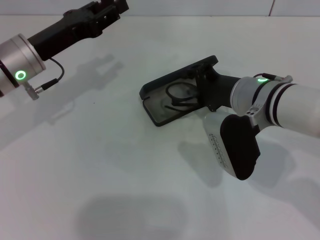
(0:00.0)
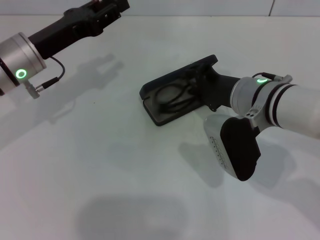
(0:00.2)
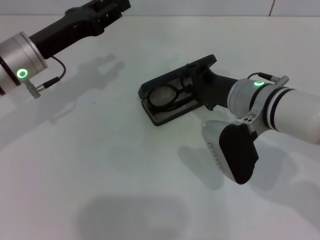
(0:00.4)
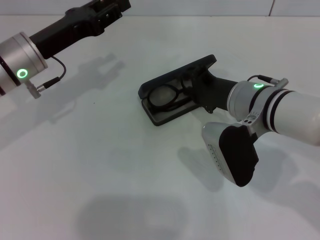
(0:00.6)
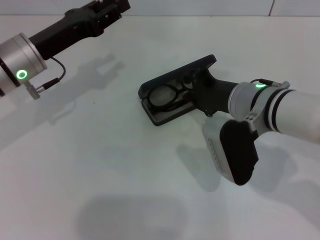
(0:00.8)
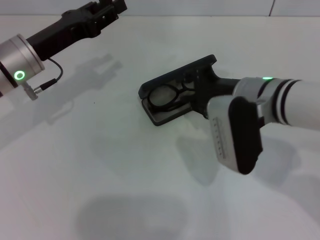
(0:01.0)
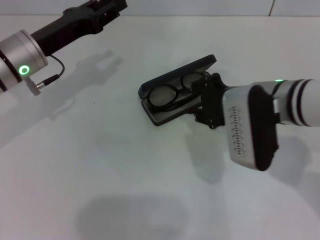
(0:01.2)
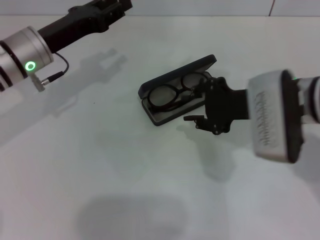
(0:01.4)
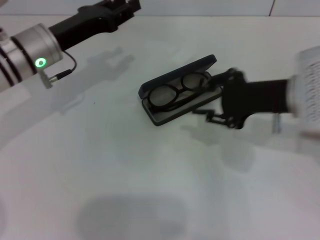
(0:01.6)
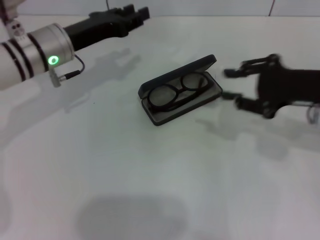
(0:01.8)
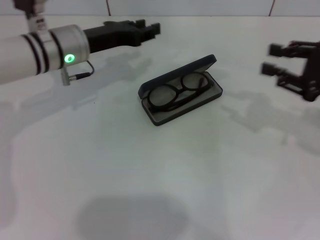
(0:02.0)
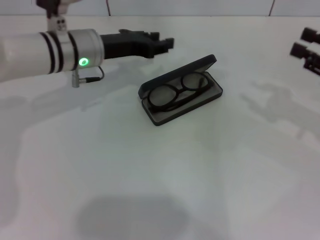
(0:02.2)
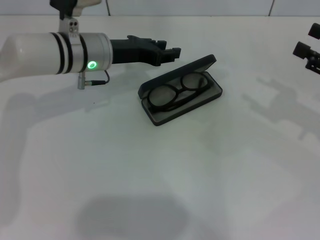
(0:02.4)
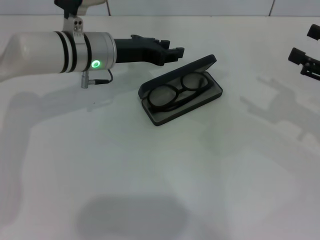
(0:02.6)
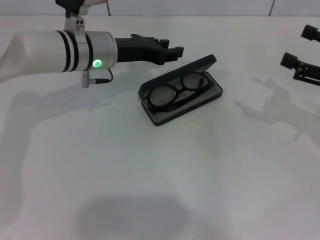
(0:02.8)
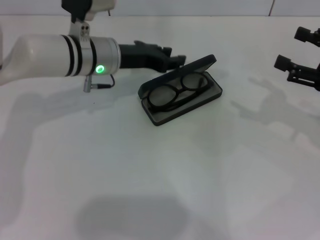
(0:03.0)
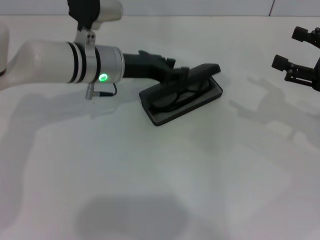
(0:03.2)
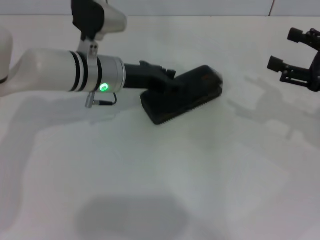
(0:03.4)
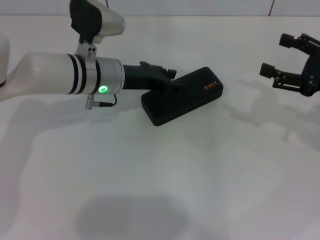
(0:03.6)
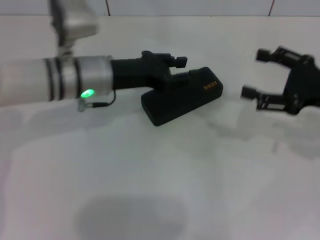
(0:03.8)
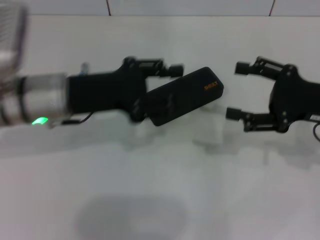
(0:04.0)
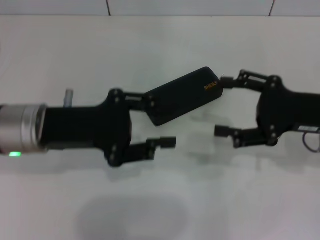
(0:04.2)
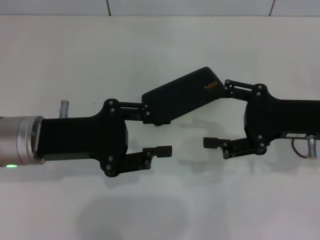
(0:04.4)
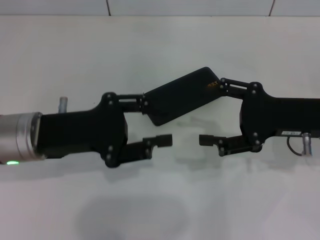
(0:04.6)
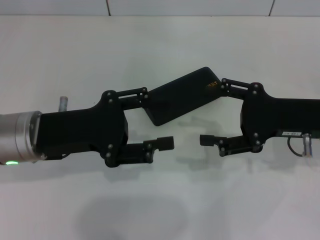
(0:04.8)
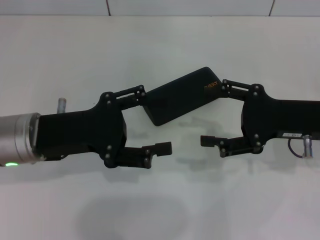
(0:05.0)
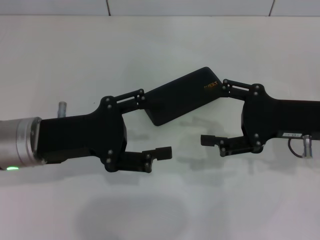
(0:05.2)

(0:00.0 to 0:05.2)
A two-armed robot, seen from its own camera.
Step, 0:00.6 - 0:03.4: Close the glasses case with your left hand.
0:00.0 - 0:01.8: The right gripper heads to the right, covering some 15 cm.
0:01.8 - 0:03.4: Both grippers travel together to the right, approximately 5 cm. The right gripper opens up.
0:03.4 - 0:05.2: The left gripper goes about 15 cm backward and to the left, while the right gripper moves to the left, approximately 10 cm.

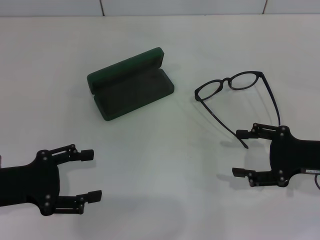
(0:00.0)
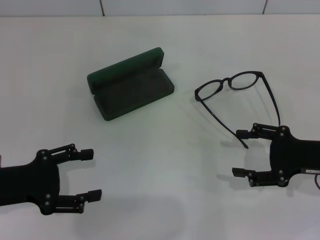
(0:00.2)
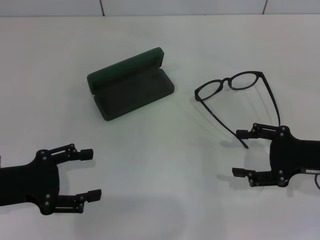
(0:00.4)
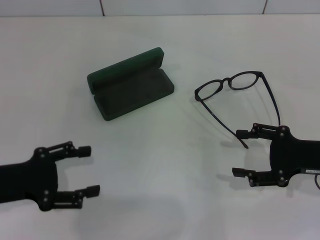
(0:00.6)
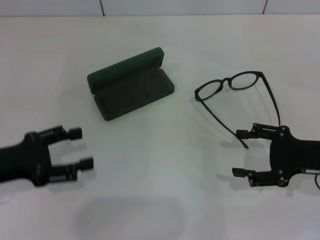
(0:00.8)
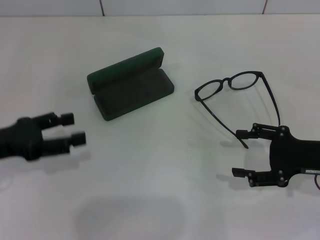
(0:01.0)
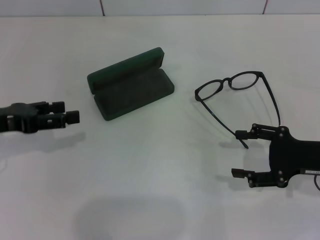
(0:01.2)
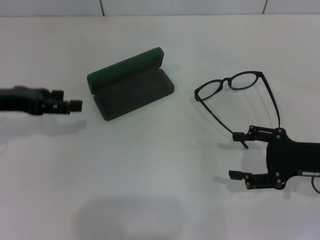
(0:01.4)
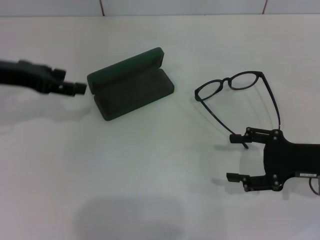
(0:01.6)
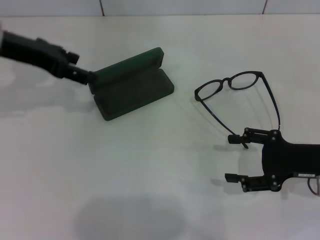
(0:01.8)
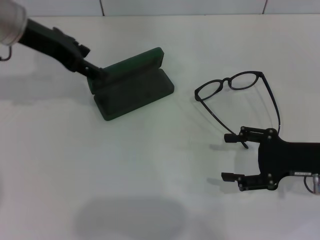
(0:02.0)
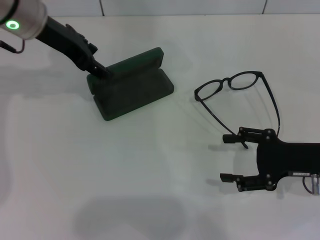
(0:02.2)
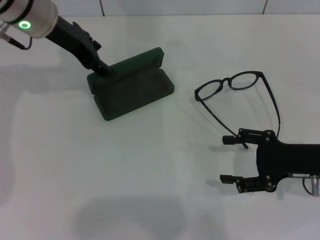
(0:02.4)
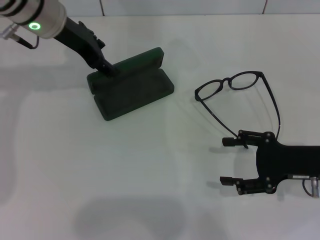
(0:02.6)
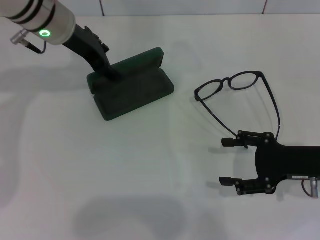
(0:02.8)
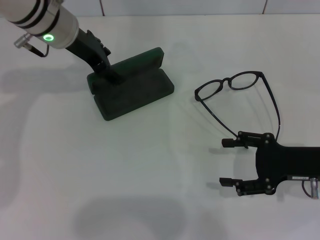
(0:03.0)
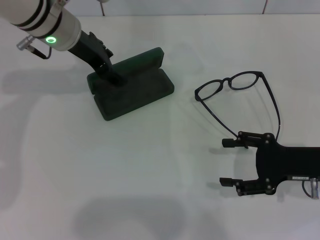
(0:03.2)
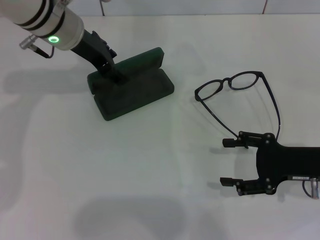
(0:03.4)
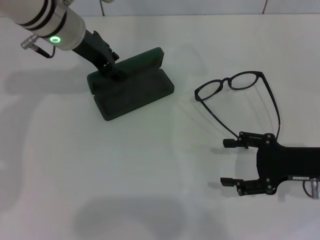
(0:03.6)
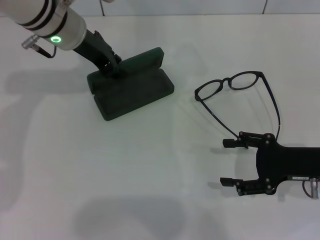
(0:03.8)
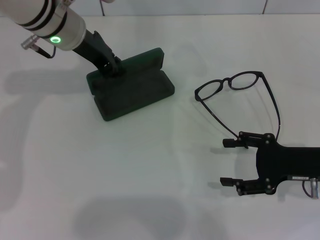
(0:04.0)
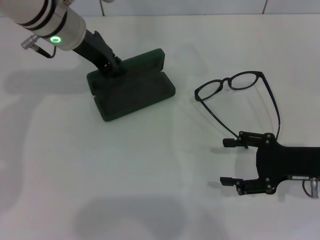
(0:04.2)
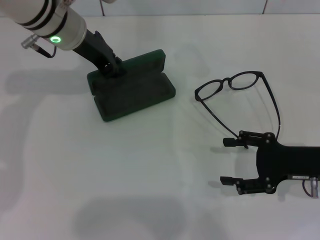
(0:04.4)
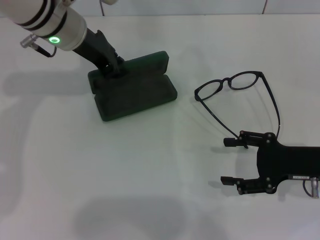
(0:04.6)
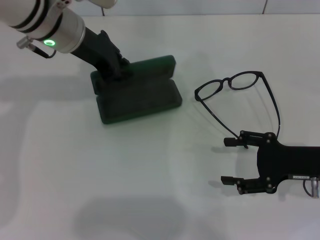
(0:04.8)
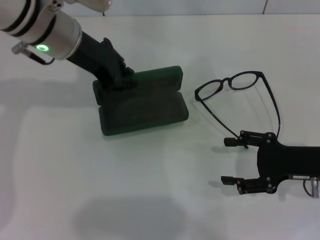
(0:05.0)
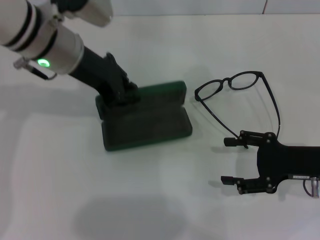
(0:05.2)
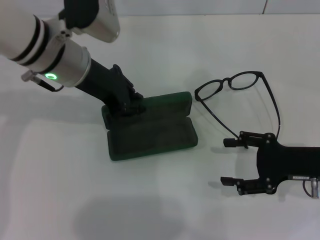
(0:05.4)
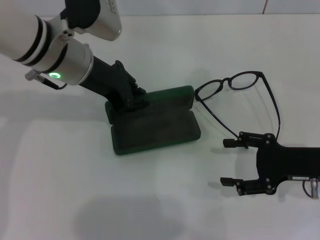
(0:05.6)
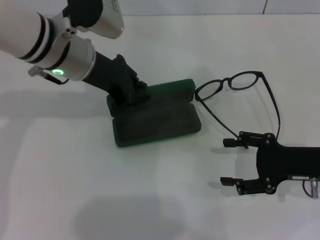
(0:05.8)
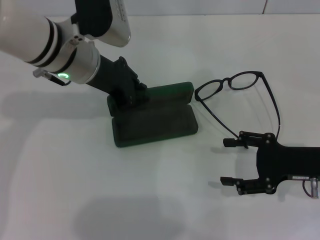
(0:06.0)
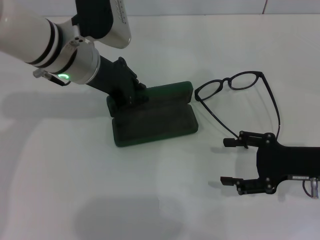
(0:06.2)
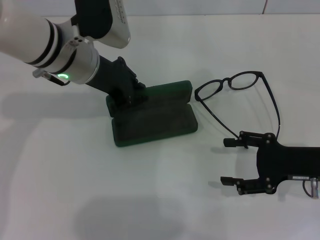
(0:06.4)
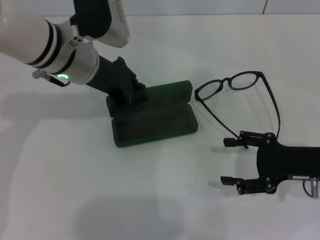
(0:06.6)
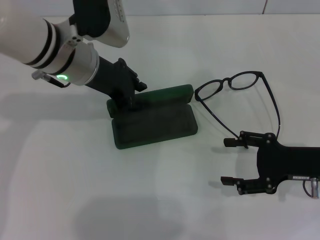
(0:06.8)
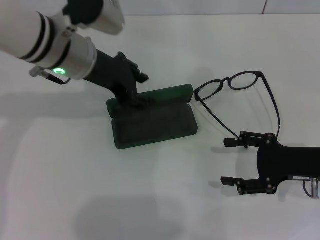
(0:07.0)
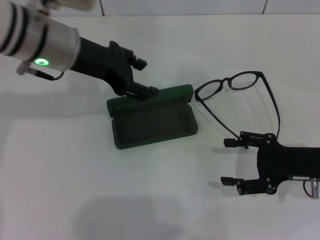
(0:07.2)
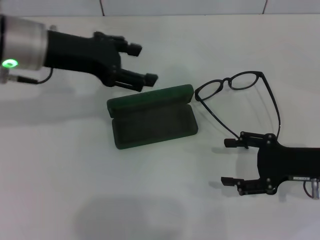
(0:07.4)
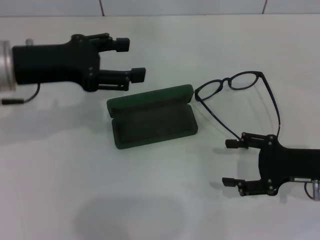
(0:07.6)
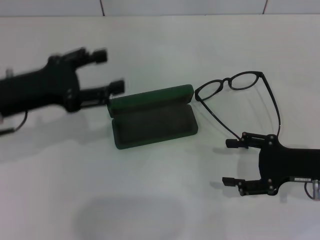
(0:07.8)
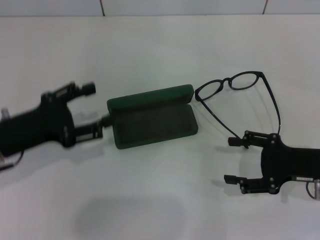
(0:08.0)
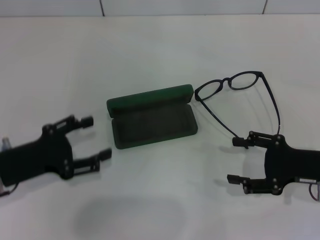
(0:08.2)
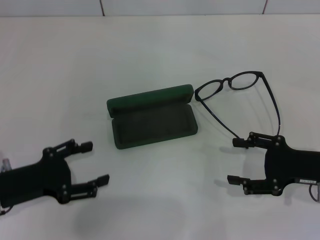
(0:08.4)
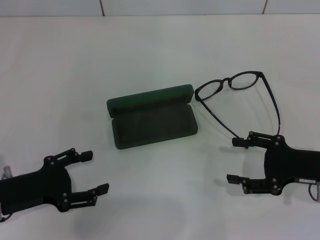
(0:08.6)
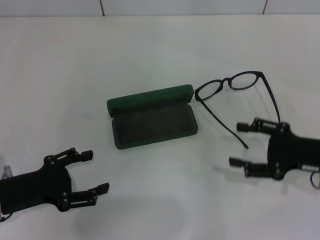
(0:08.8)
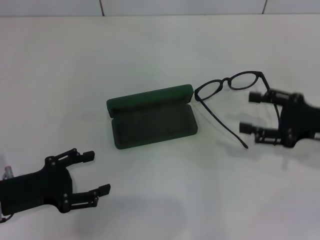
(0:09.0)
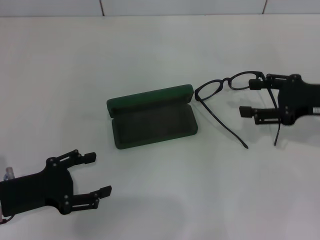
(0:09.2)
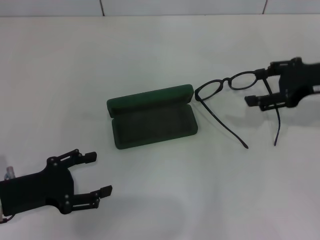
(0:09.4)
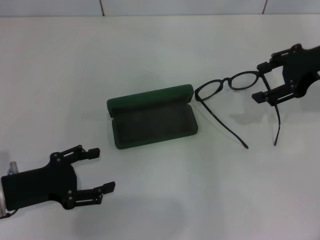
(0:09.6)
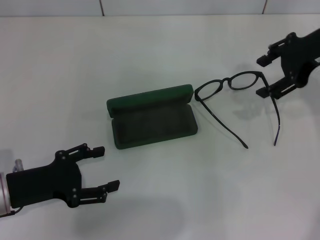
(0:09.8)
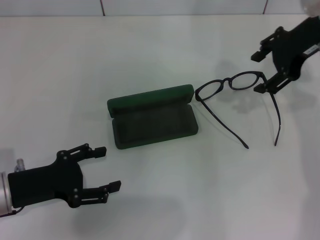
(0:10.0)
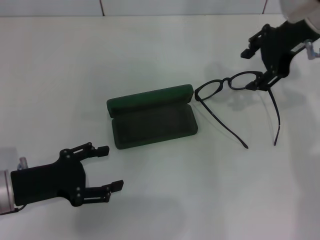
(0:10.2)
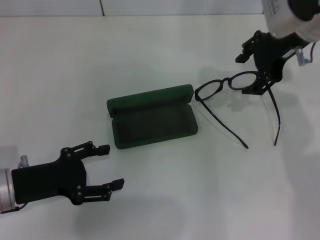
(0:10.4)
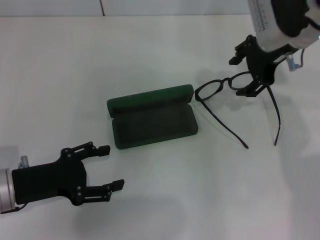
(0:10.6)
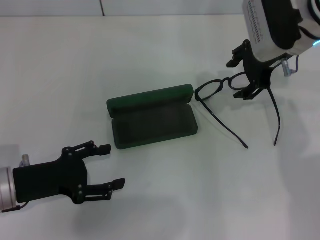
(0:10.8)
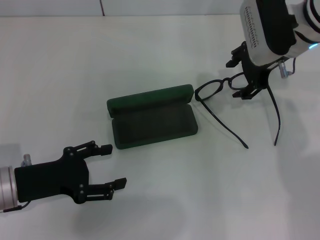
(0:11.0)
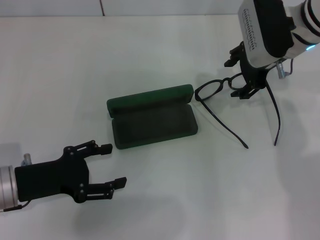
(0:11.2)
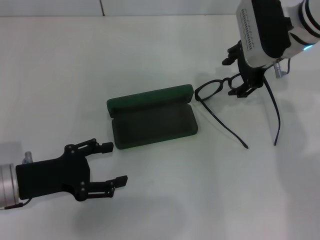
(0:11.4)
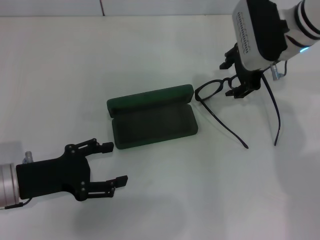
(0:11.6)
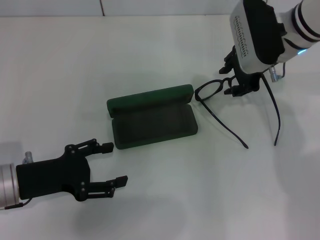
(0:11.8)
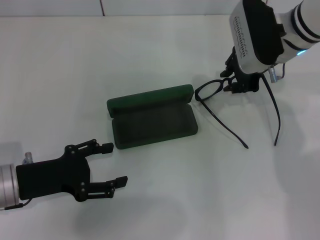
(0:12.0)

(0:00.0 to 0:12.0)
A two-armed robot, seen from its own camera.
Step, 0:00.0 - 0:04.0: Grab the glasses case with your left hand.
Step, 0:04.2 - 0:06.8: Place the glasses case in the center of the table with your left hand.
0:00.0 - 0:01.6: The left gripper goes roughly 15 cm forward and upward.
0:01.6 - 0:03.0: The left gripper heads to the right and forward, covering roughly 15 cm.
0:03.0 - 0:04.4: The left gripper closes.
0:04.4 - 0:06.0: The left gripper heads backward, covering approximately 5 cm.
0:06.0 - 0:07.6: The left gripper is displaced to the left and backward by roughly 10 cm, and opens up.
0:07.6 - 0:09.0: The left gripper shifts some 20 cm downward and backward, while the right gripper ends up some 5 cm from where it was.
0:09.0 - 0:10.4: The right gripper shifts some 20 cm upward, forward and to the left.
0:10.4 - 0:12.0: The right gripper moves downward, about 5 cm, and closes up.

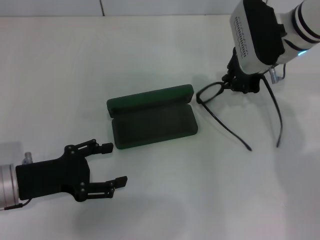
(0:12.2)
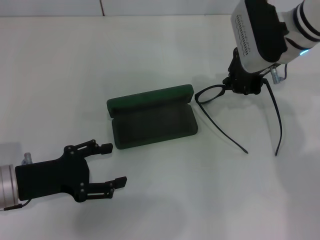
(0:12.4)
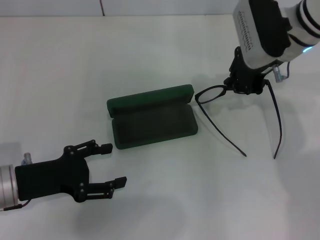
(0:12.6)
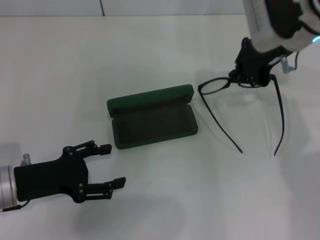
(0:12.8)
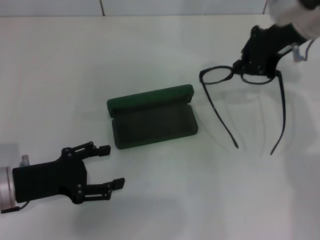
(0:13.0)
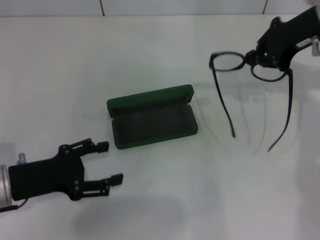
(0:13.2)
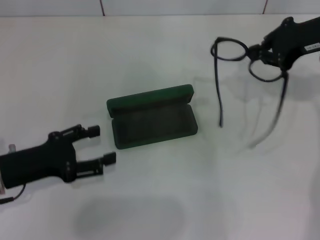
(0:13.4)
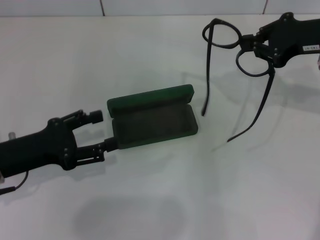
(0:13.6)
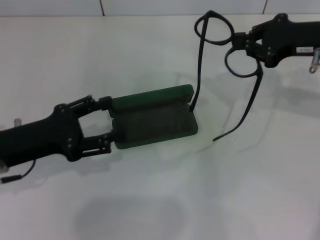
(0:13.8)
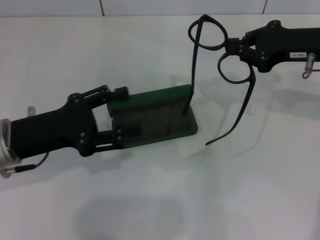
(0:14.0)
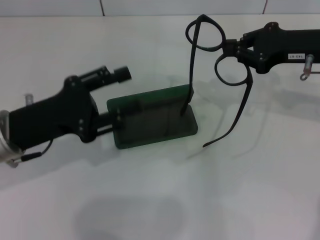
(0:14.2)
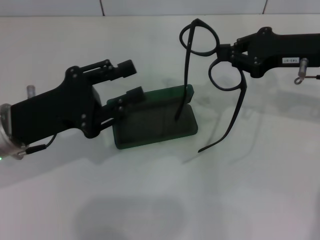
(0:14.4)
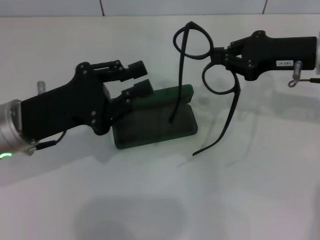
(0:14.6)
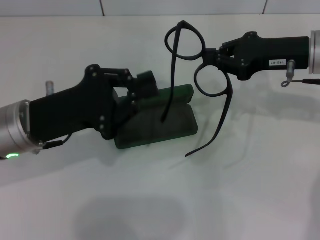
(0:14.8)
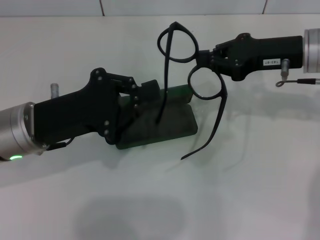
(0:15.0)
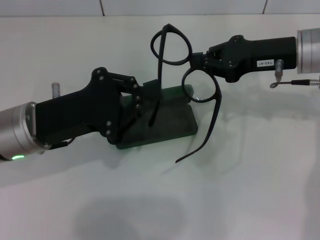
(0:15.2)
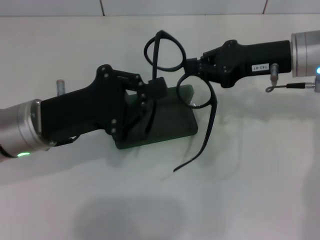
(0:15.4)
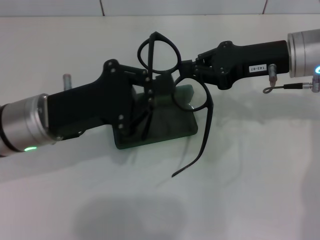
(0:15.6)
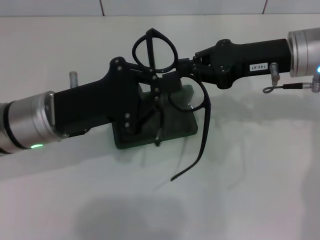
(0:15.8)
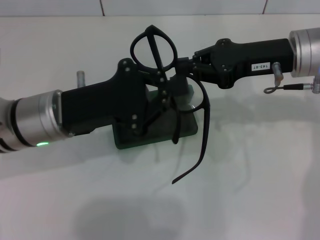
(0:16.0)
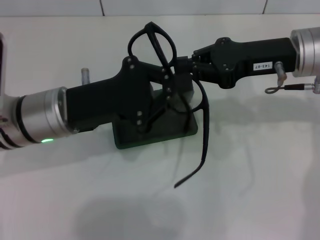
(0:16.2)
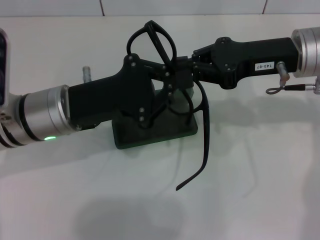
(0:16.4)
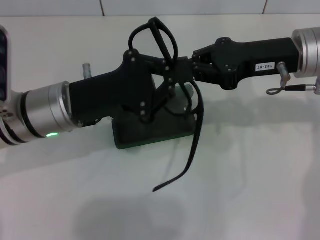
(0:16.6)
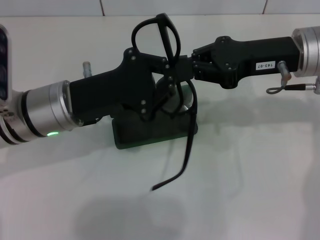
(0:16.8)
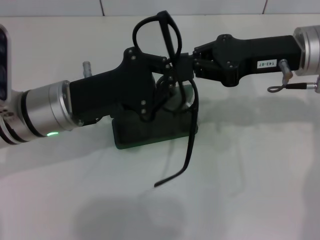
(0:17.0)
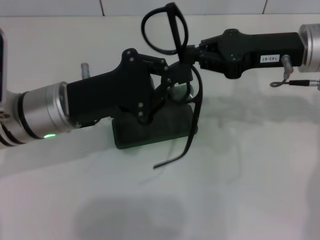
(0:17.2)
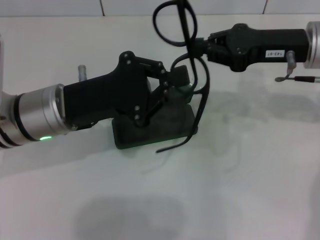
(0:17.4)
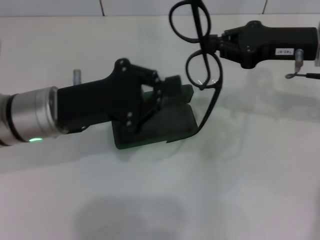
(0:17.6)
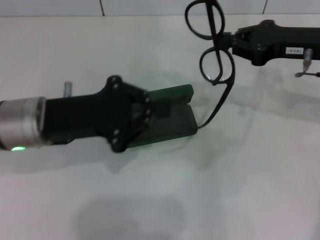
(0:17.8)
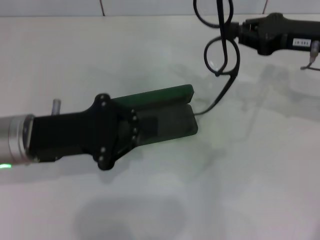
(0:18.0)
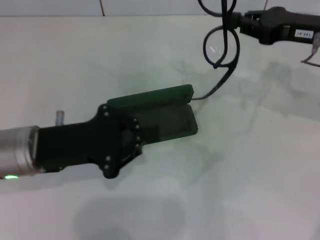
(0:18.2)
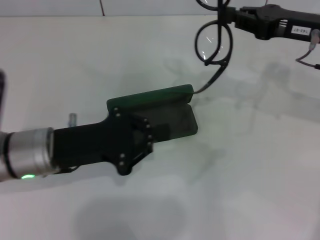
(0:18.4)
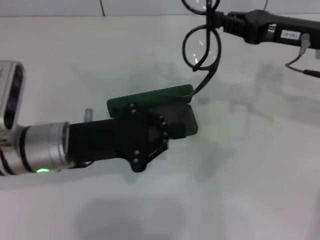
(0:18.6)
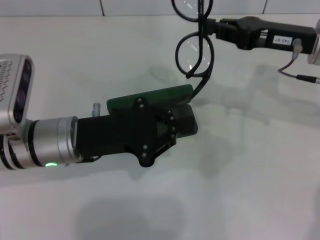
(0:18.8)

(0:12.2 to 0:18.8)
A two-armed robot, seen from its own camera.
0:12.2 - 0:13.8: The right gripper is displaced to the right by roughly 10 cm.
0:13.8 - 0:15.4: The left gripper is displaced to the right by approximately 5 cm, and closes its fingers; the right gripper is displaced to the left by roughly 5 cm.
0:15.4 - 0:17.2: There are only small adjustments of the grippers.
